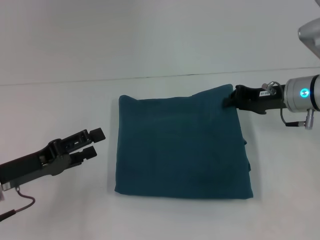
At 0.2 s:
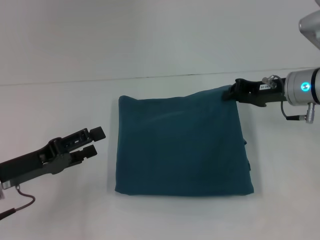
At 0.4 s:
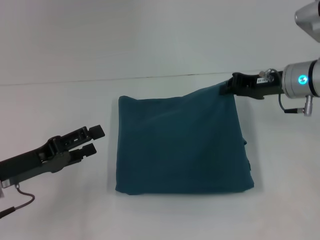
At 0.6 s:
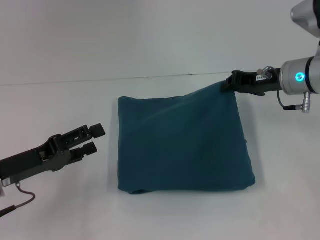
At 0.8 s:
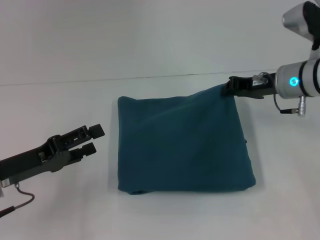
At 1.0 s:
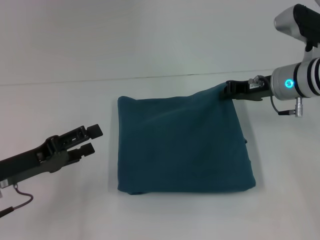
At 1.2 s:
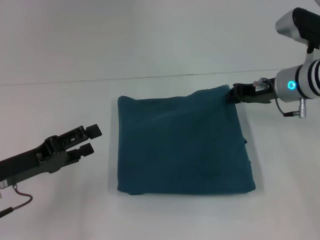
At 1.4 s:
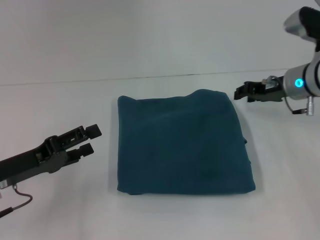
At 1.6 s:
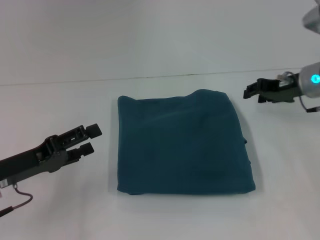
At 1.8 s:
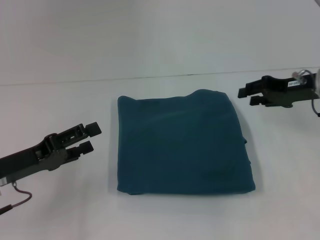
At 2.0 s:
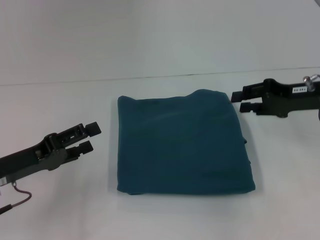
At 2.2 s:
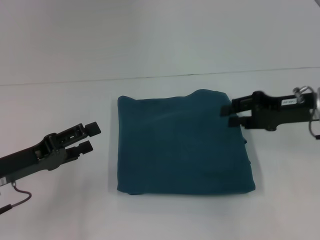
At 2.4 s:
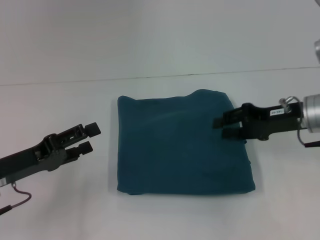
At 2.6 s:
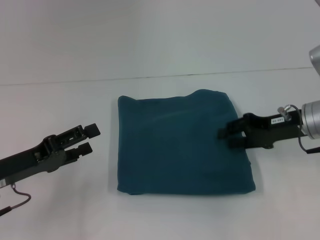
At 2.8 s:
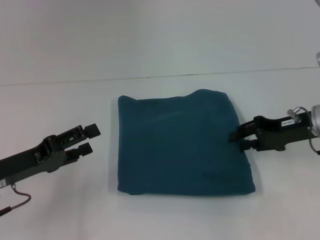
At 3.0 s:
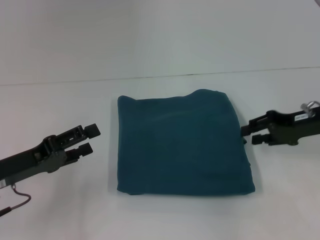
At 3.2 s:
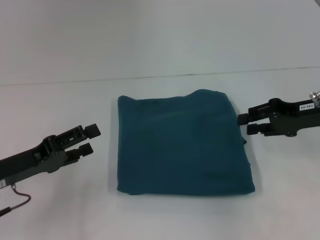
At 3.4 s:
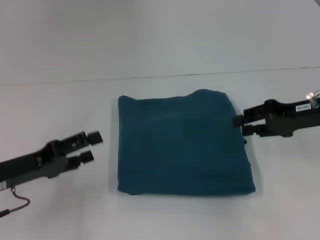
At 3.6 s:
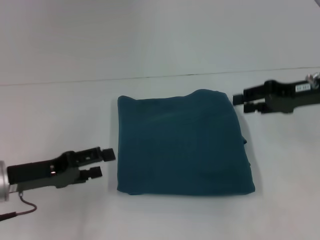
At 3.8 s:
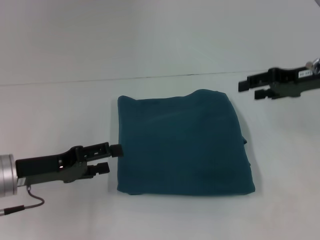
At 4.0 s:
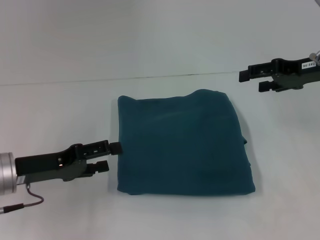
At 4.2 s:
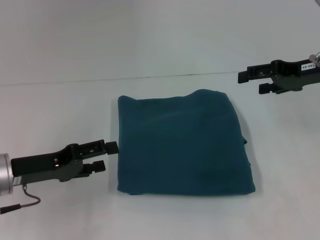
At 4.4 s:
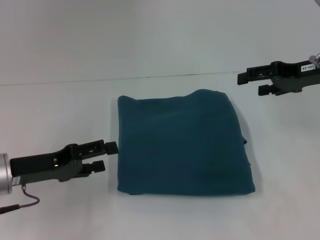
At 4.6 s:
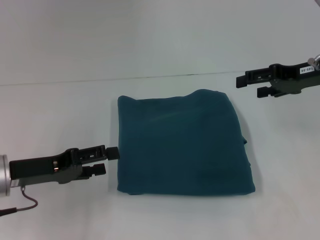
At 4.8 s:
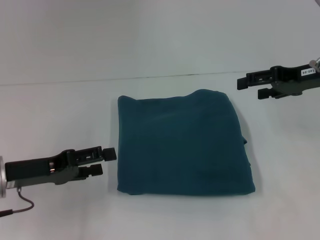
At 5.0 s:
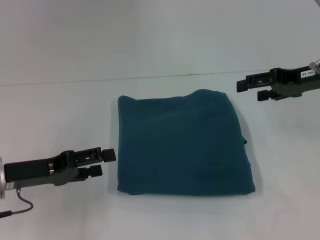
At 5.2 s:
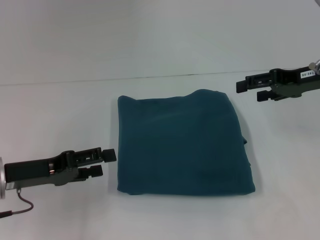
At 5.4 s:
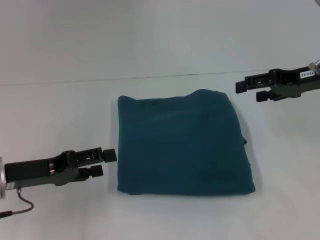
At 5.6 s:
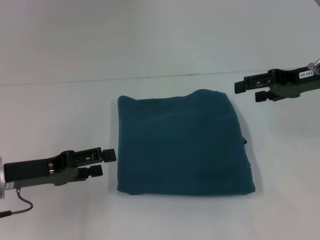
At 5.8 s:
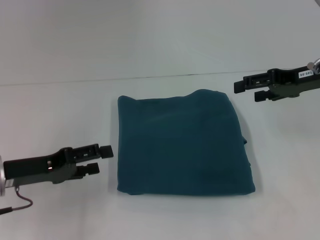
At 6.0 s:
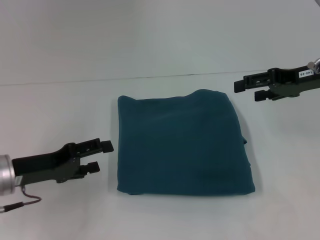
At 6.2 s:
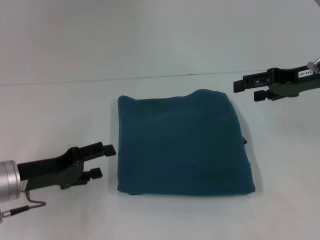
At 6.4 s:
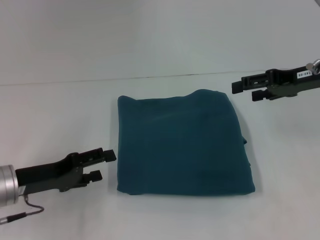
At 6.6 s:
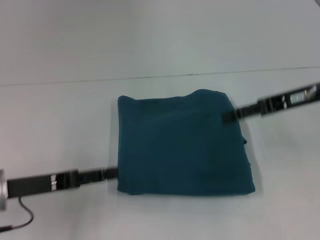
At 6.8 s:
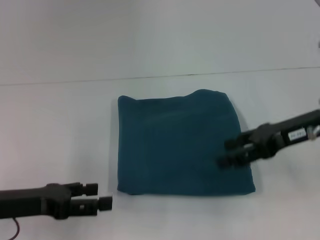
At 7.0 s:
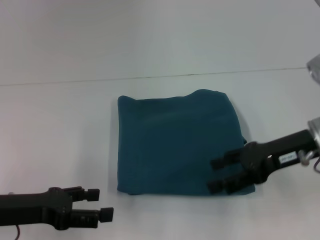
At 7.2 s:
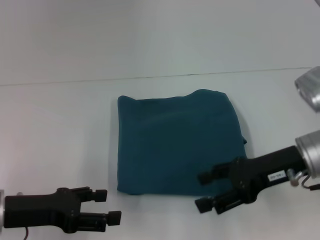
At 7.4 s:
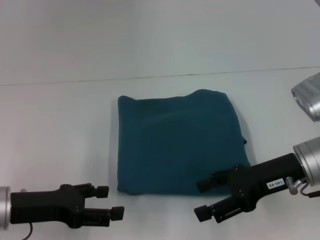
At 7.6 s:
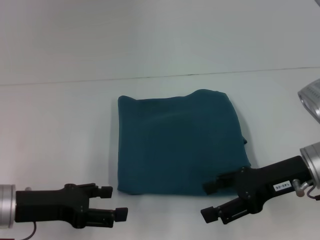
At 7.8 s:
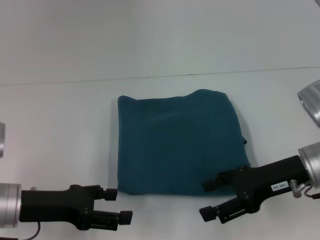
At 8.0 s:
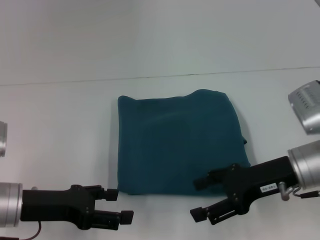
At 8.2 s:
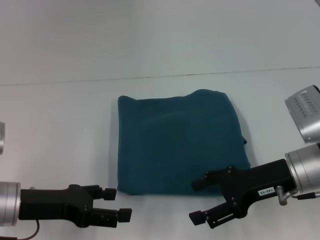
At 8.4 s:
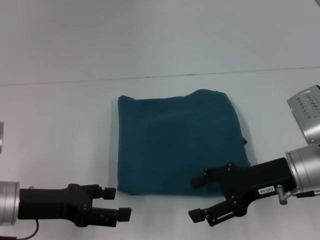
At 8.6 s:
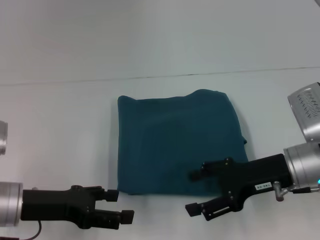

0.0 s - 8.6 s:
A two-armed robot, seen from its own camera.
0.0 s - 1.4 s: There are only small adjustments of the grippers.
1.4 s - 2.8 s: The right gripper travels backward by some 5 cm.
2.8 s - 4.4 s: The right gripper is displaced upward by some 10 cm, and opens its fingers.
4.4 s - 5.8 s: Neither gripper changes place.
5.8 s - 7.2 s: The right gripper shifts some 10 cm backward, to the left and downward.
7.2 s - 8.6 s: There are only small adjustments of the grippers.
